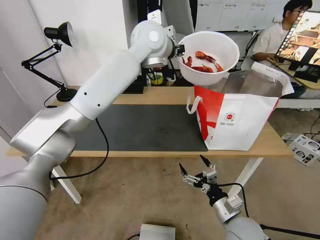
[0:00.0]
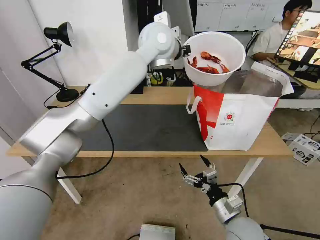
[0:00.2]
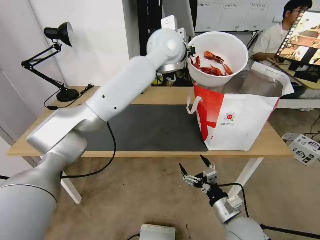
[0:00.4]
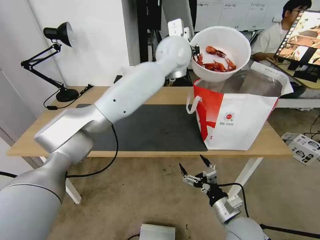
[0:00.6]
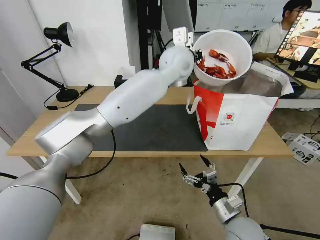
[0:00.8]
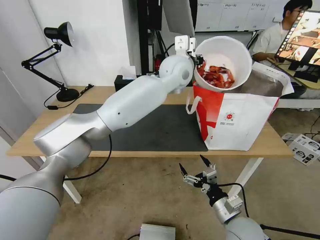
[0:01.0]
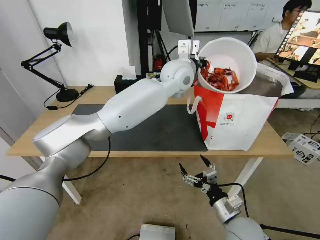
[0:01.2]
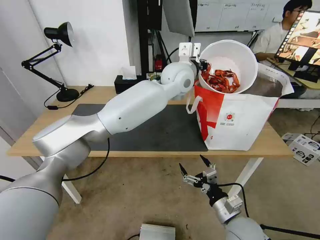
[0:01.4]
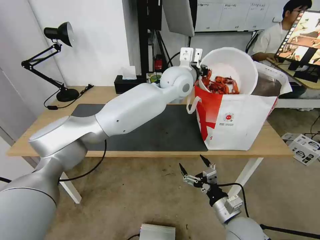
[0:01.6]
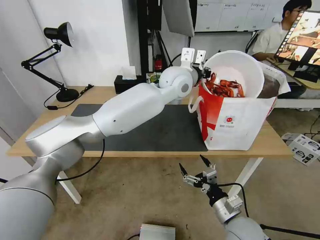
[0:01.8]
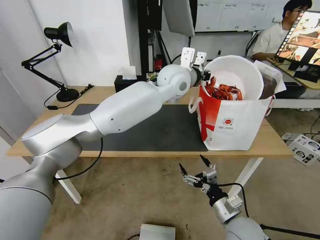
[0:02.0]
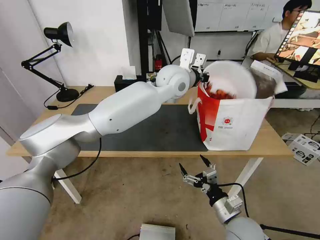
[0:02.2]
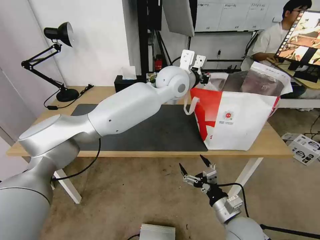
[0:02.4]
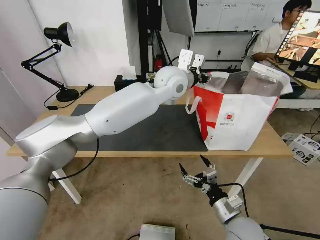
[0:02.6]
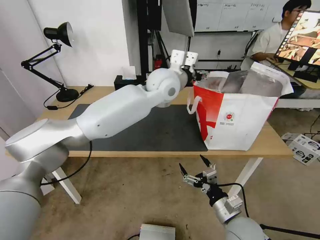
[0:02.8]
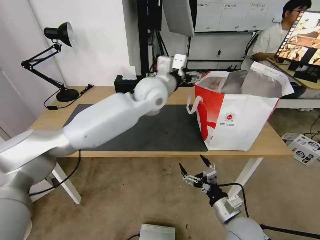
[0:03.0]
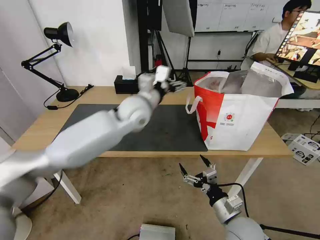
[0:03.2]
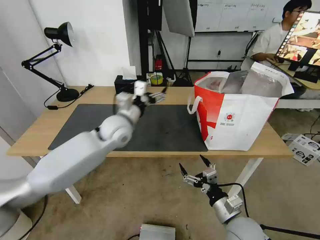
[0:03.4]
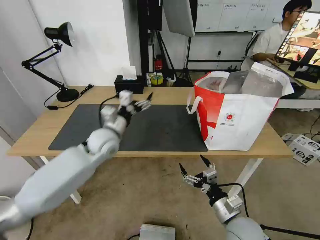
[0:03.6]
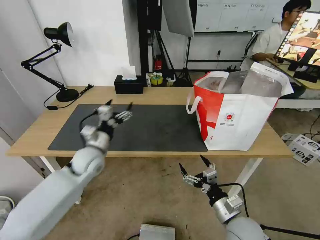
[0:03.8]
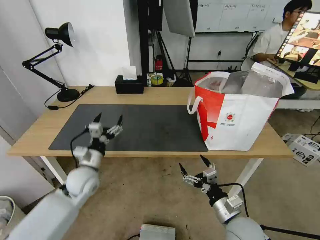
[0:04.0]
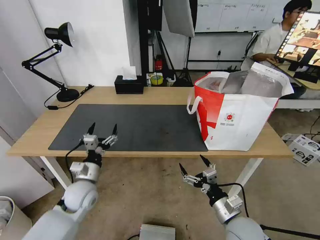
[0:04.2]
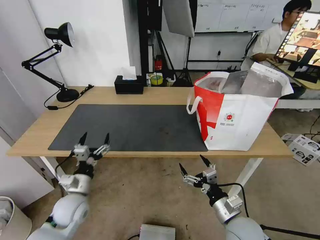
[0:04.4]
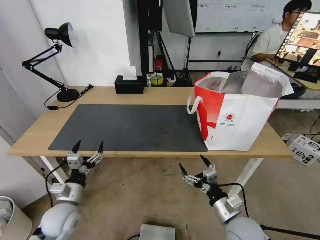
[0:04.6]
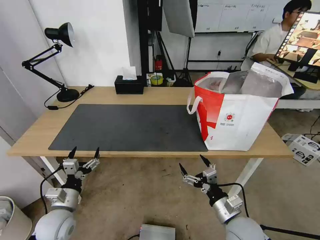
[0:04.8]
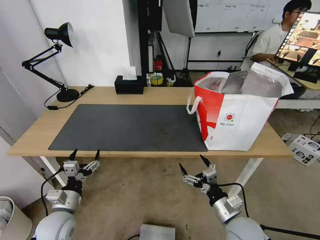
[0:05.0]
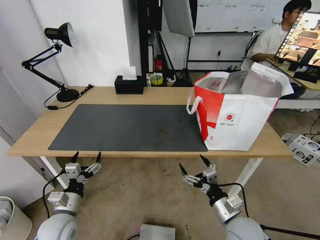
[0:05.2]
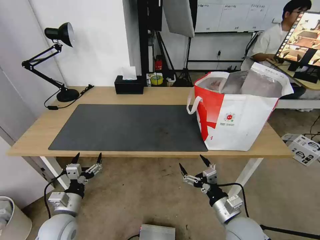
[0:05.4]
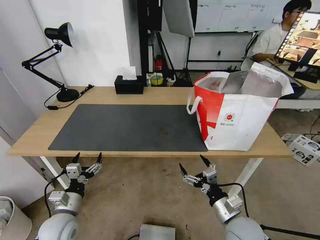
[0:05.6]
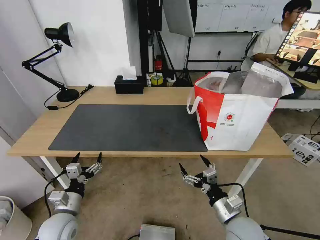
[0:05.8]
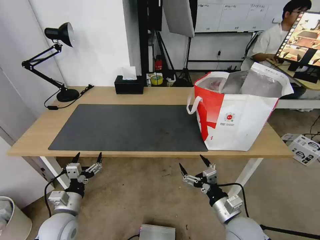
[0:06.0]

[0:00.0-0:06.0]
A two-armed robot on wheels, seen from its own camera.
Task of the whole recording: Pick up the trash from the table and place it into the takeout bag.
0:00.0 to 0:01.6: The left gripper moves downward and to the right, approximately 15 cm.
0:01.6 to 0:03.0: The left gripper heads to the left, covering some 10 cm, and opens up.
0:03.0 to 0:04.4: The left gripper heads downward, to the left and backward, covering some 40 cm.
0:04.4 to 0:06.0: The left gripper shifts about 5 cm backward.

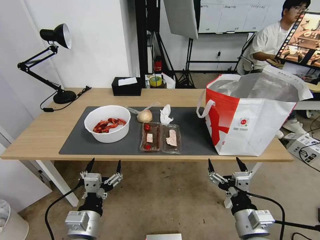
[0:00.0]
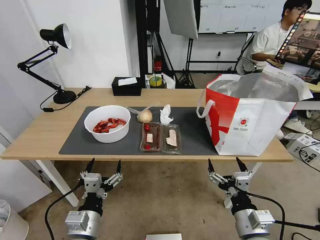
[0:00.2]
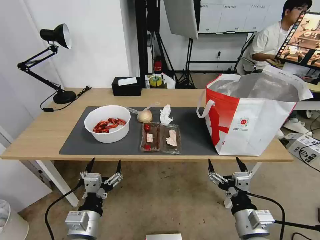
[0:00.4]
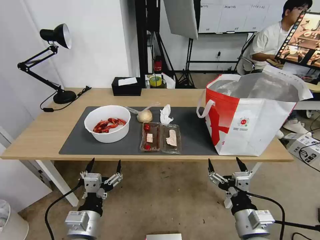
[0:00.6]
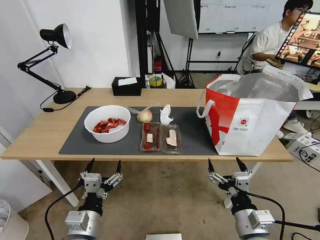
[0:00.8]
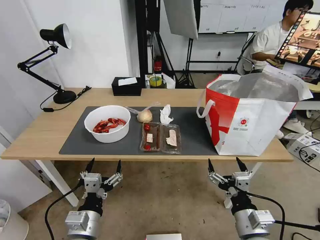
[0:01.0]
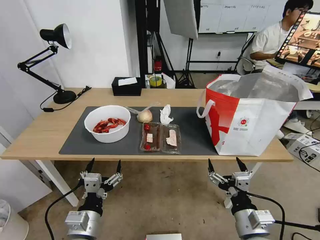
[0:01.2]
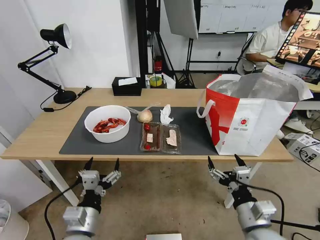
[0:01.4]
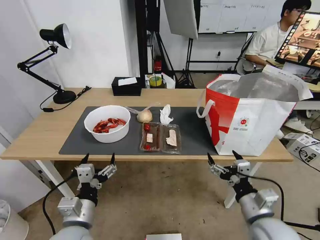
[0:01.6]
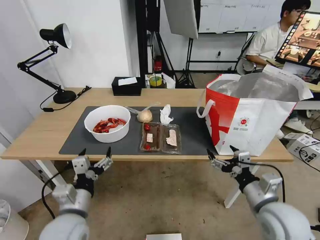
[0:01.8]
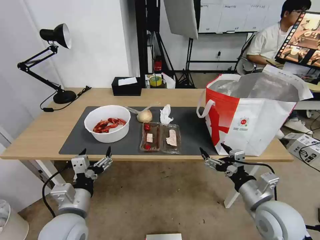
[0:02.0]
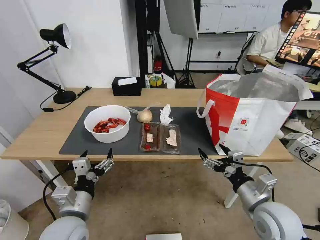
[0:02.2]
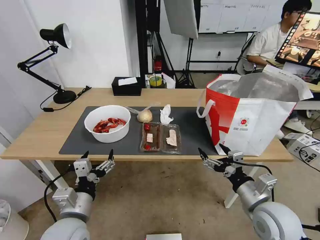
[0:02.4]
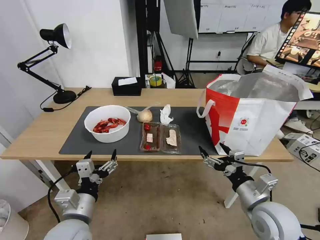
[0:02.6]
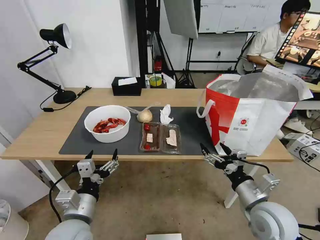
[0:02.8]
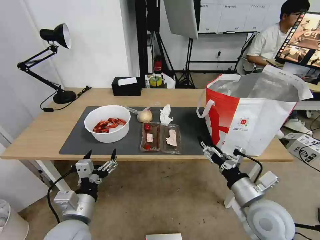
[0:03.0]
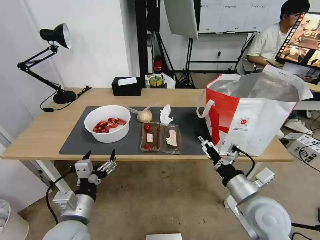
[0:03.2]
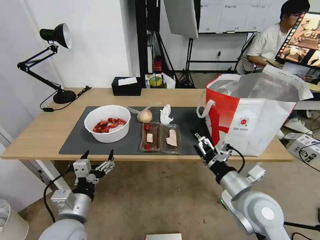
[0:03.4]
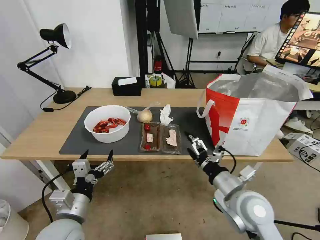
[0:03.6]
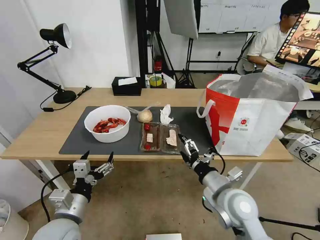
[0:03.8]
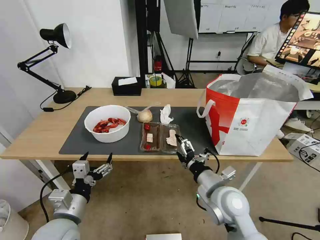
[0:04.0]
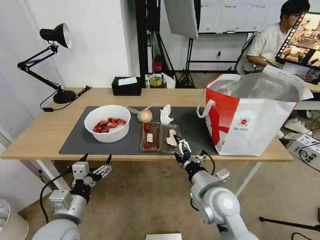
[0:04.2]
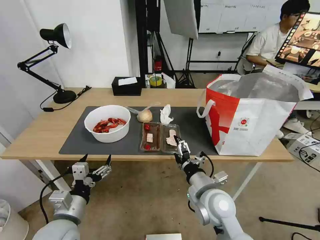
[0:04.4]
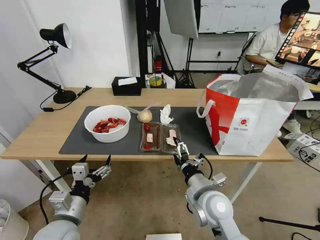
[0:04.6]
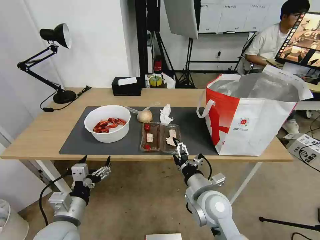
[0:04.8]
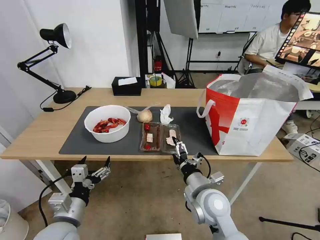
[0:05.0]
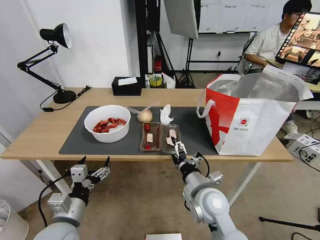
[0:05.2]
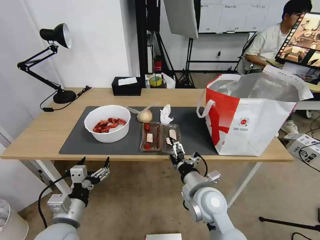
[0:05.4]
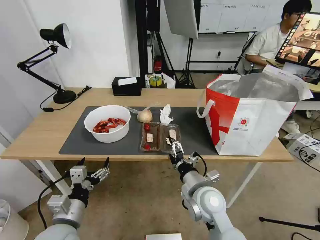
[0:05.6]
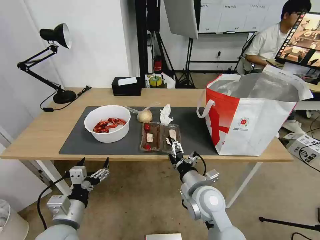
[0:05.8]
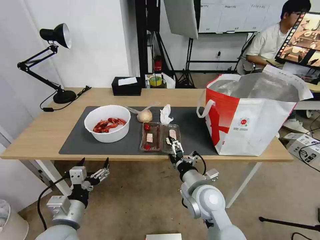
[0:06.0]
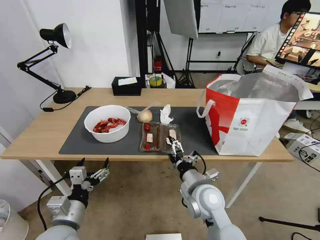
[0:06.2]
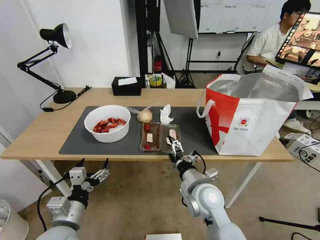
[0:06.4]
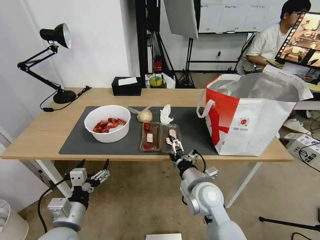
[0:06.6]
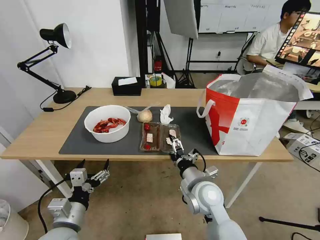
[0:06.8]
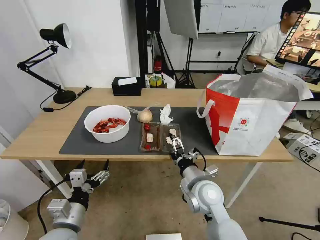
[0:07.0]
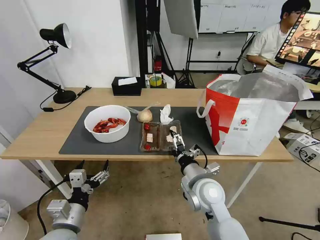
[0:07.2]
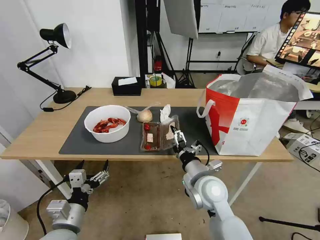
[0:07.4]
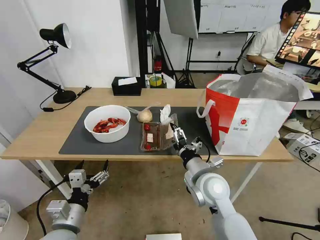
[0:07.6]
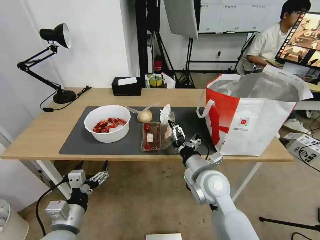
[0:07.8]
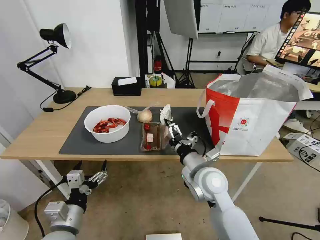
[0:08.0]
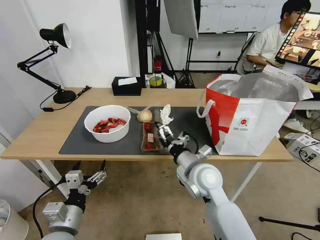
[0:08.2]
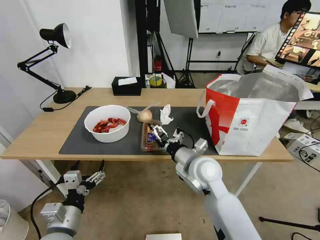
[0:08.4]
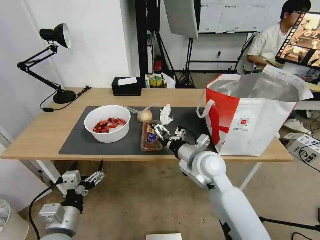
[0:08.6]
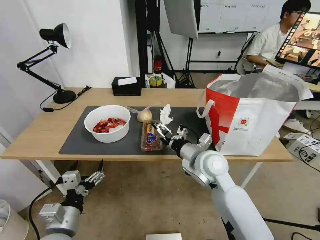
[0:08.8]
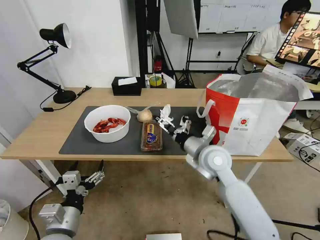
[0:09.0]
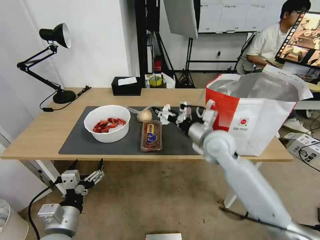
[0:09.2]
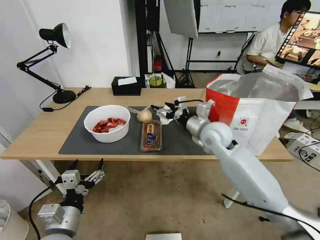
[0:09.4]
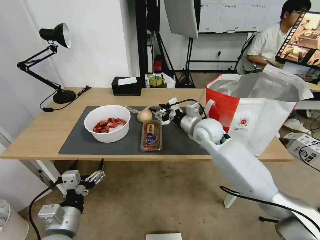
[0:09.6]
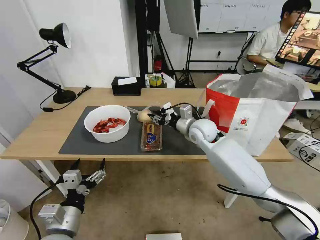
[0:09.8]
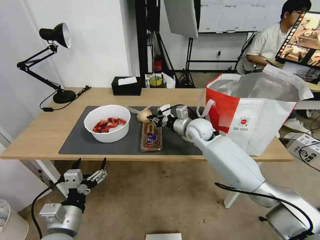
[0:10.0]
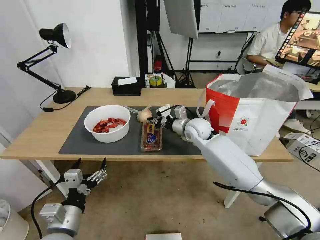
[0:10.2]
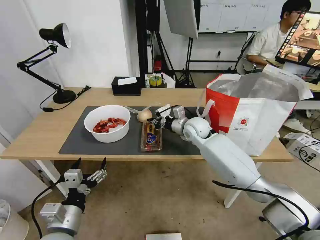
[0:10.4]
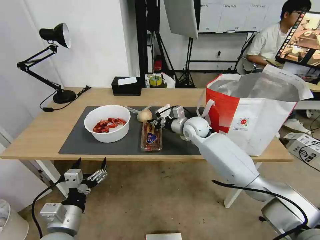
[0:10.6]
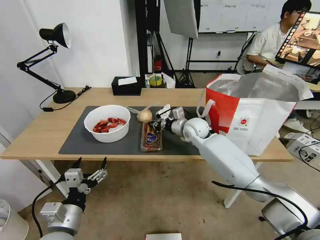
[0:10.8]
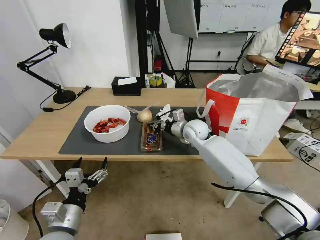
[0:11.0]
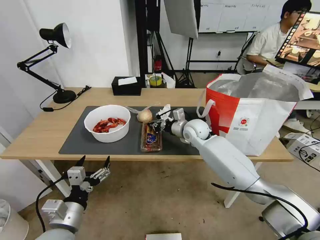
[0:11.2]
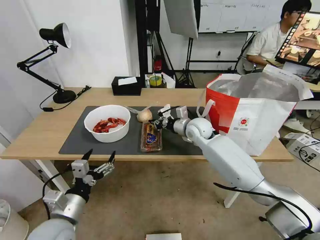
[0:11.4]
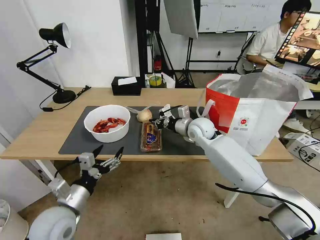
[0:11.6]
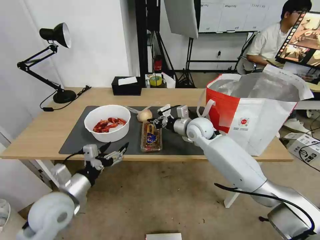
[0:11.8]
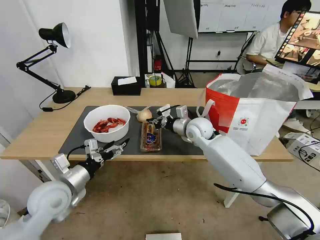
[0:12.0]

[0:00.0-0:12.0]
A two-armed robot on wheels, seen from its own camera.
Task of the whole recording: Pick up the trash from the table and place it into the takeout bag.
0:03.0 to 0:04.4: The right gripper travels to the left by about 10 cm.
0:04.4 to 0:07.6: The grippers stay close to where they were, moving slightly.
0:07.6 to 0:09.0: The right gripper goes approximately 10 cm forward and upward.
0:09.0 to 0:10.4: The right gripper heads forward, covering some 15 cm, and closes.
0:10.4 to 0:12.0: The left gripper goes some 10 cm forward.

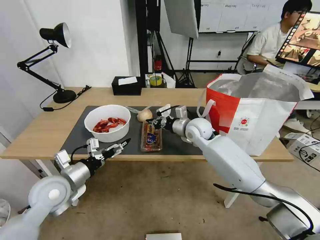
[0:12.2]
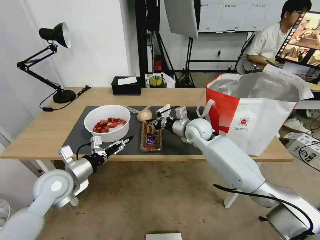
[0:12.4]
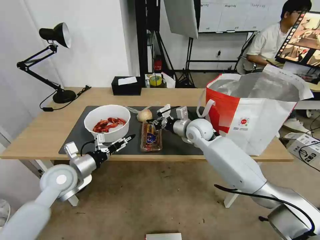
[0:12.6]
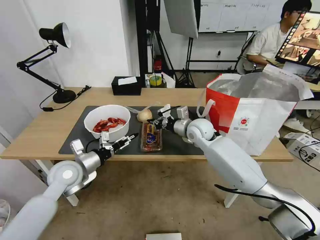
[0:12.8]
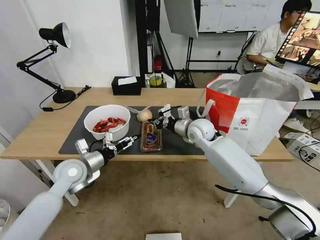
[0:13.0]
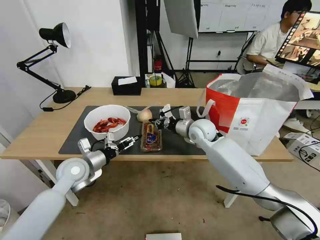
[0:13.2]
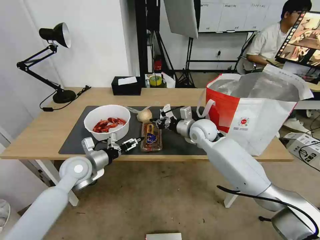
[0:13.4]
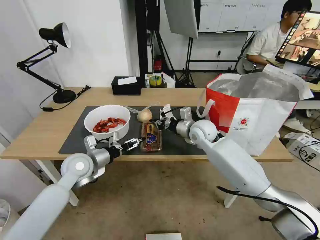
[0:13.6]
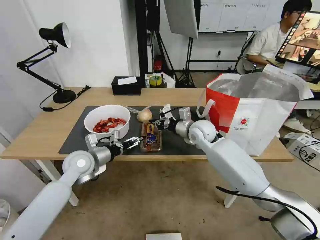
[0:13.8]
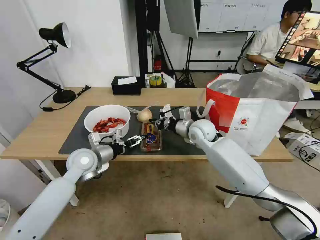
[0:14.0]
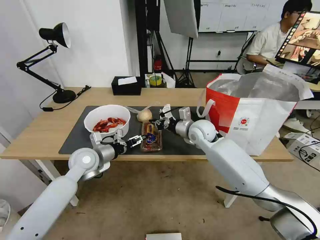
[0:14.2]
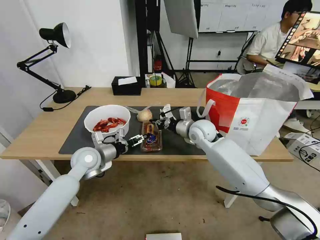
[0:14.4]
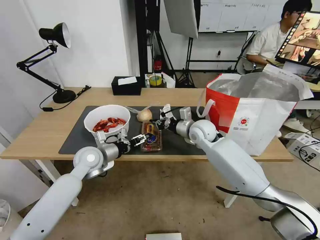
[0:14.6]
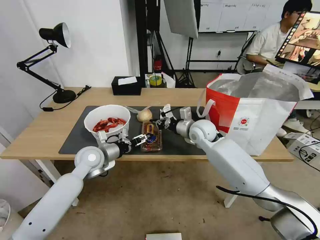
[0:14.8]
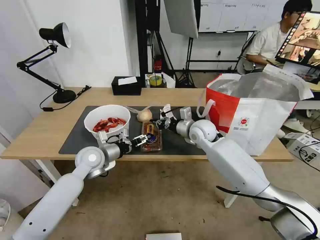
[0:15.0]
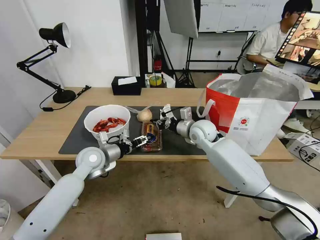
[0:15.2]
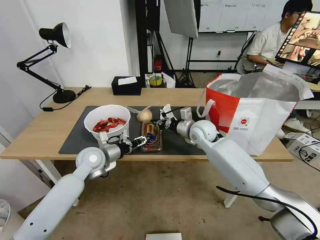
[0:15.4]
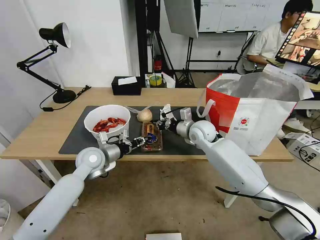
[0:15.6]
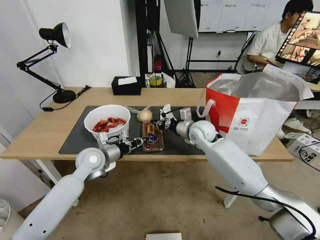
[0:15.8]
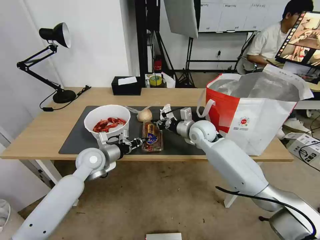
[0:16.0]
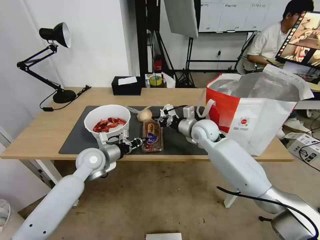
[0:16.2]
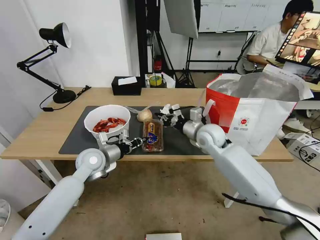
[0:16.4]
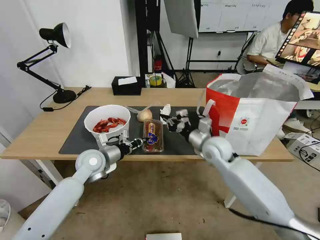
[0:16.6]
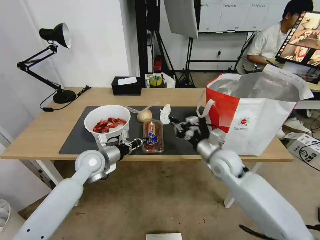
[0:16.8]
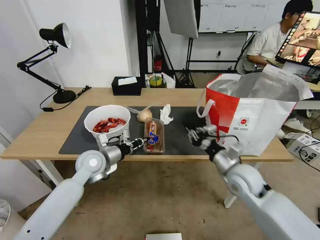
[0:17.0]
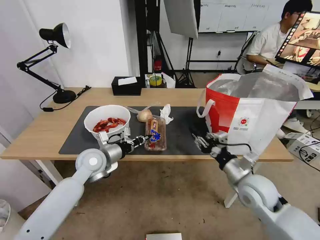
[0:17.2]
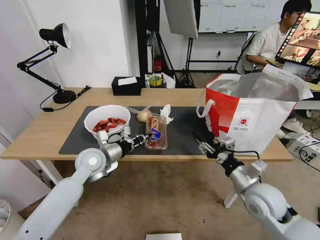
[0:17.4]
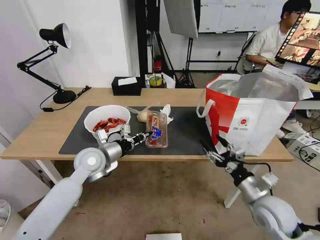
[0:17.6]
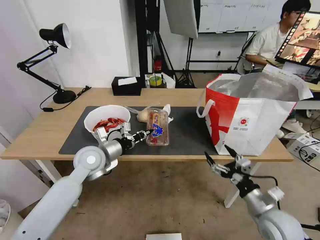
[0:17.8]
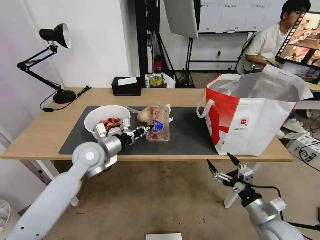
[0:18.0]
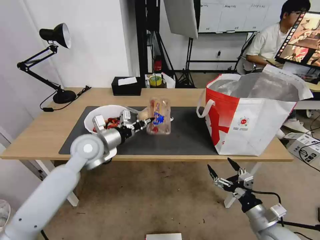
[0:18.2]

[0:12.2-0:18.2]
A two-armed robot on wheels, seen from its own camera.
Task of the whole recording: Pick up the trash from the table and place it into the takeout bag.
0:12.2 to 0:13.8: The left gripper travels forward by about 10 cm.
0:13.8 to 0:15.2: There are only small adjustments of the grippers.
0:15.2 to 0:16.6: The right gripper shifts roughly 5 cm backward; the left gripper closes up.
0:16.6 to 0:18.2: The right gripper heads backward, to the right and downward, covering about 30 cm, and opens; the left gripper goes some 10 cm upward.
